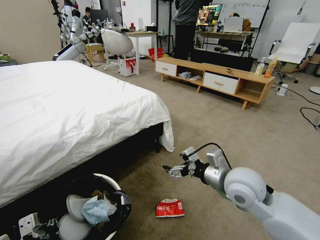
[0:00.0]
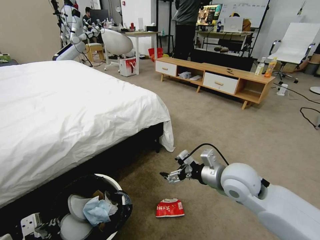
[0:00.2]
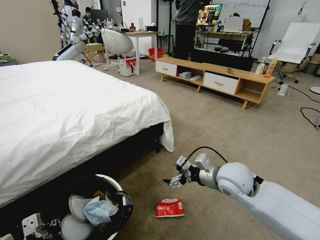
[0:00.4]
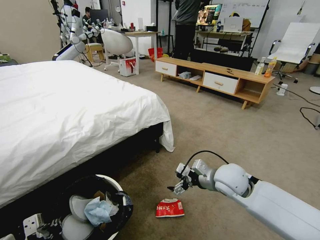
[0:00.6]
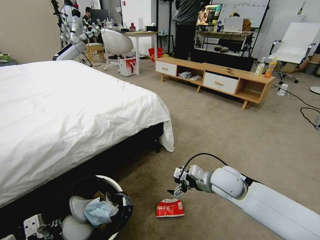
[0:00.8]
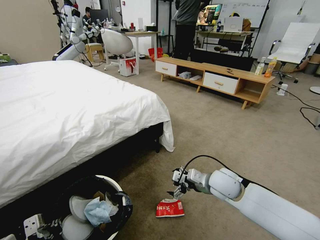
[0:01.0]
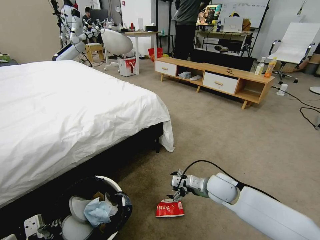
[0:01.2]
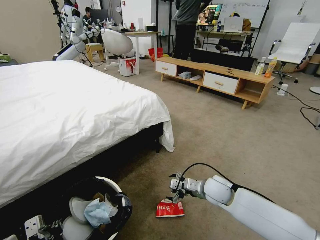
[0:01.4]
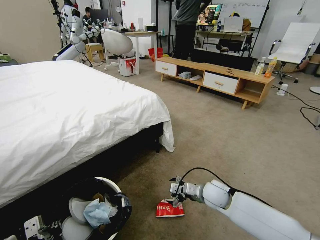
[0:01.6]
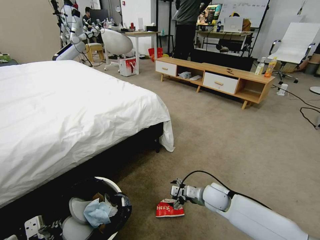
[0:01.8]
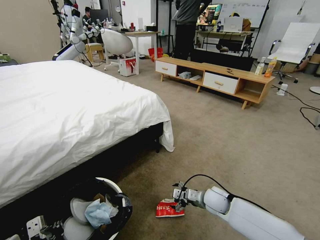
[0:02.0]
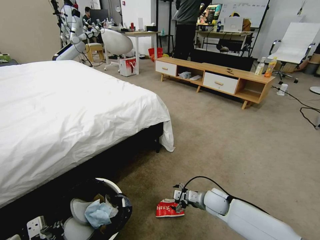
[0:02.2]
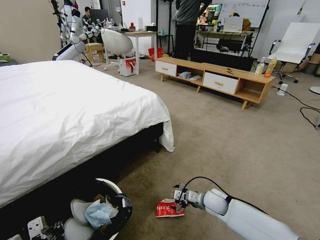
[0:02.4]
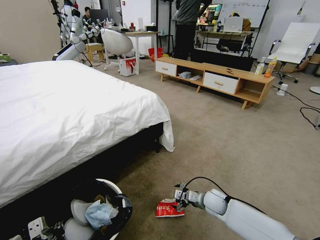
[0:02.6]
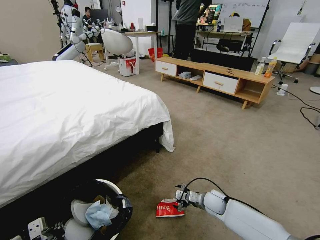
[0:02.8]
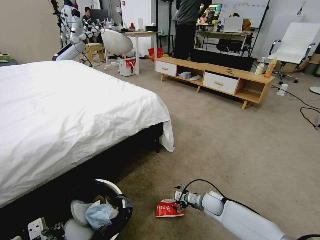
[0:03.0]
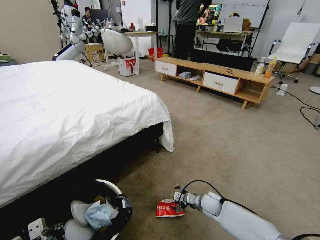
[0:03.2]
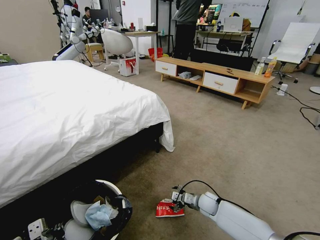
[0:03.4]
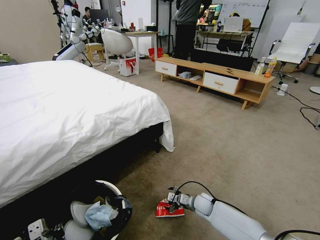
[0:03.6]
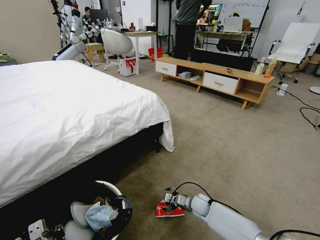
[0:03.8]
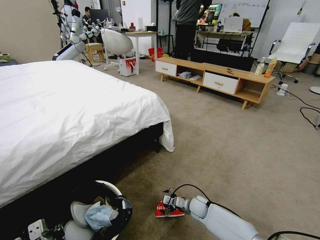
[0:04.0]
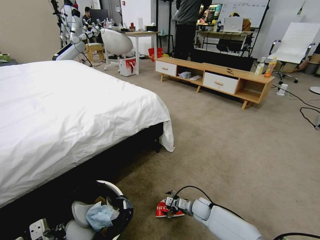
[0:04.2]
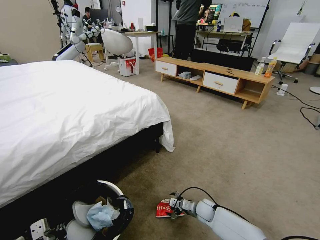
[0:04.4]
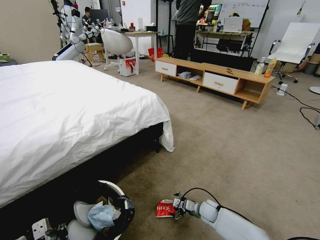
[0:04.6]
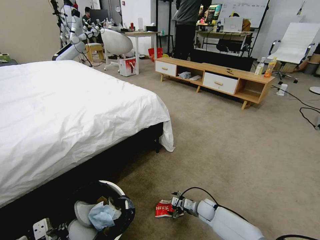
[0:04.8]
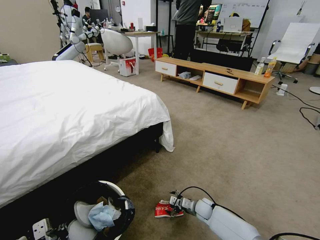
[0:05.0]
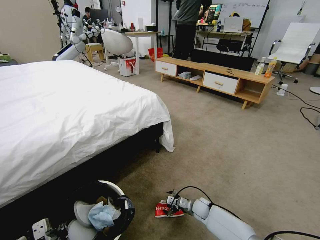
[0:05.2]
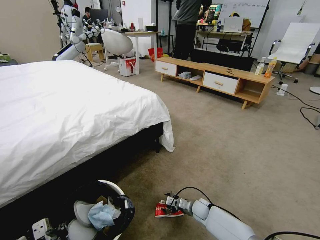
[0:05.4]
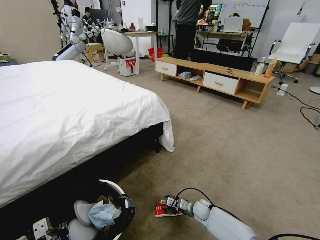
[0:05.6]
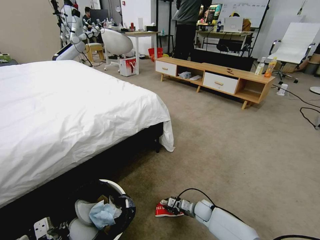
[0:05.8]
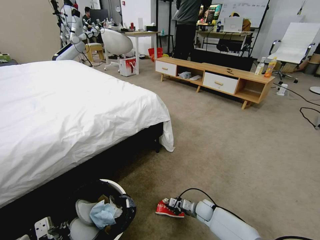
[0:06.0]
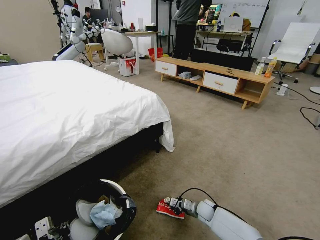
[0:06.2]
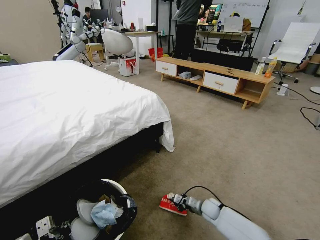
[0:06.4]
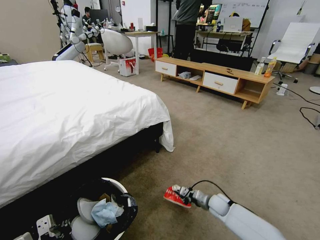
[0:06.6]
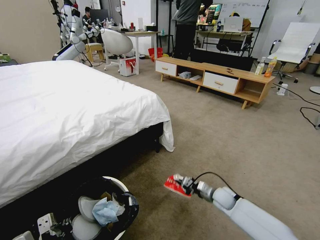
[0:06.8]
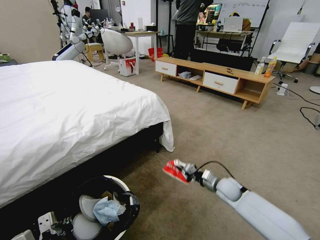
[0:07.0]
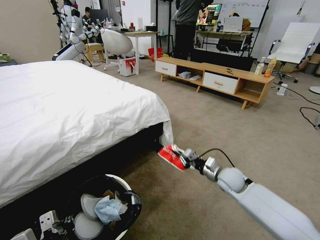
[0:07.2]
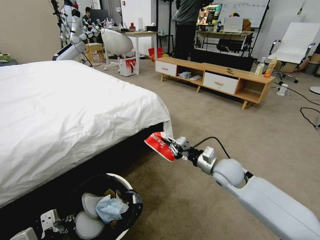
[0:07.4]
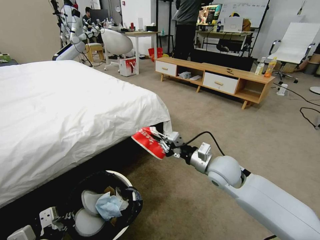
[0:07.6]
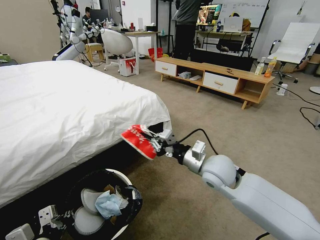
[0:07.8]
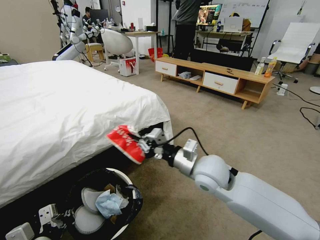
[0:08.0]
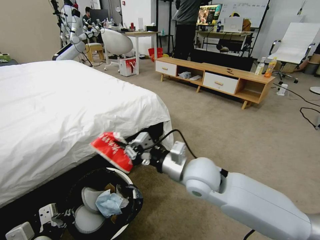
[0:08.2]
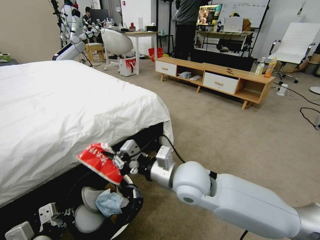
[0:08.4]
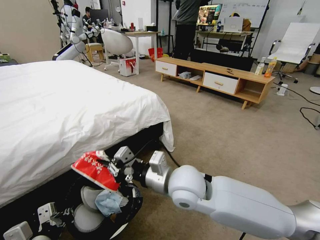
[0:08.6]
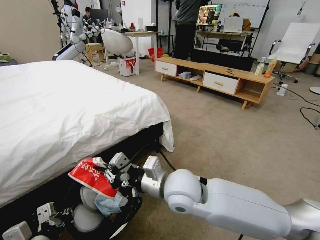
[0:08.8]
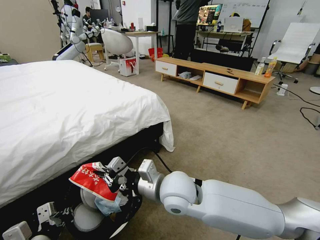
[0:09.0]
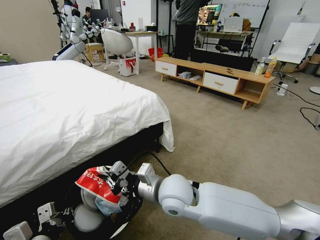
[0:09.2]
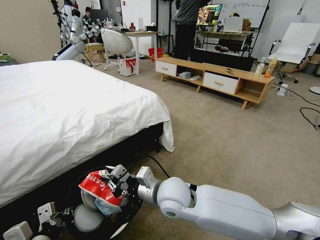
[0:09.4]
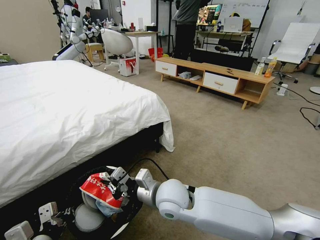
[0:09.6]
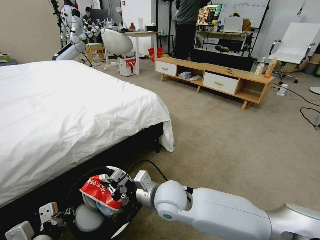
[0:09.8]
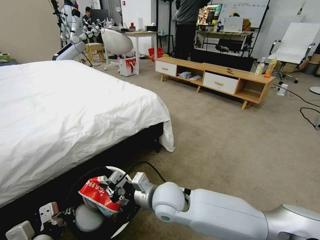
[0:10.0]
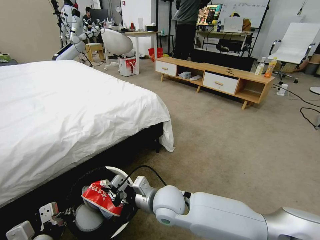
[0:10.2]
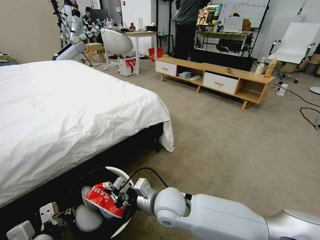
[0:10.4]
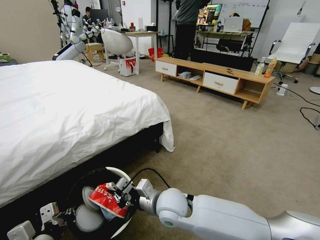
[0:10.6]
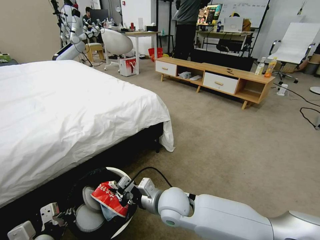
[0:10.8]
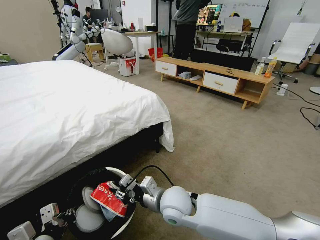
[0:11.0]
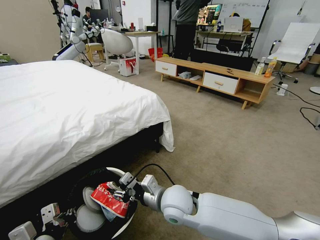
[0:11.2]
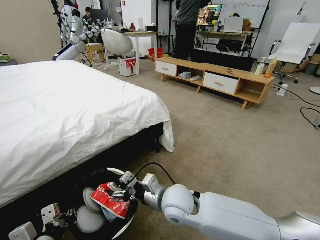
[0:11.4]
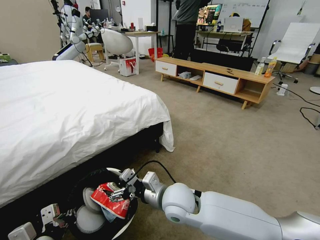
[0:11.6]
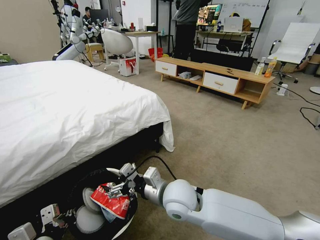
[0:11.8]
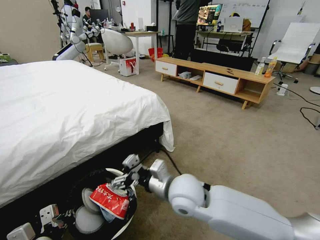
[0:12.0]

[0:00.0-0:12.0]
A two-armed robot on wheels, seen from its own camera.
Task of the whole recording: Pick up the trash bin and place the garbage on the floor into it.
0:00.0 to 0:01.6: The right gripper travels downward and forward by about 20 cm.
0:01.6 to 0:03.0: The right gripper moves downward, approximately 10 cm.
0:03.0 to 0:04.4: The right gripper moves downward, some 5 cm.
0:04.4 to 0:06.0: The right gripper closes up.
0:06.0 to 0:07.6: The right gripper moves upward, some 35 cm.
0:07.6 to 0:09.0: The right gripper moves to the left and backward, approximately 20 cm.
0:09.0 to 0:10.4: The right gripper moves downward, approximately 10 cm.
0:10.4 to 0:12.0: The right gripper moves upward, some 5 cm, and opens its fingers.

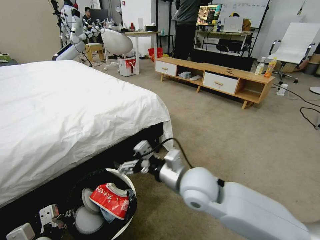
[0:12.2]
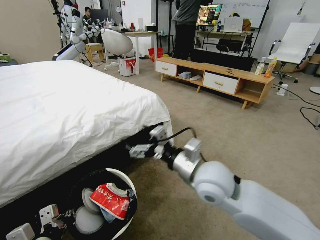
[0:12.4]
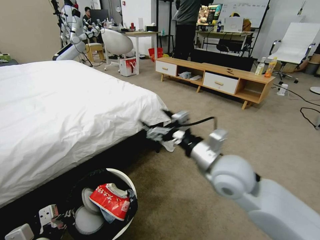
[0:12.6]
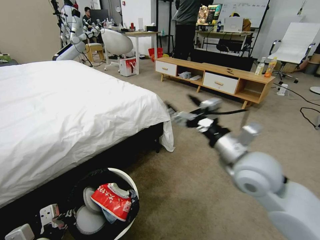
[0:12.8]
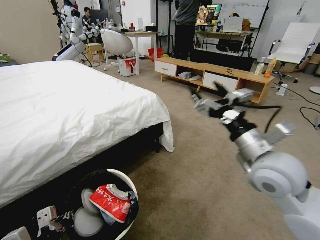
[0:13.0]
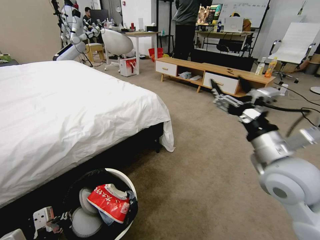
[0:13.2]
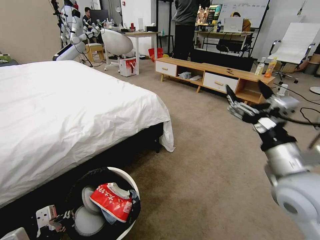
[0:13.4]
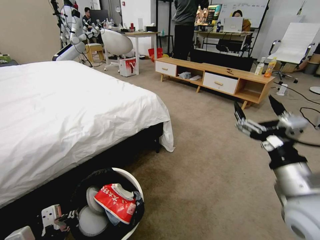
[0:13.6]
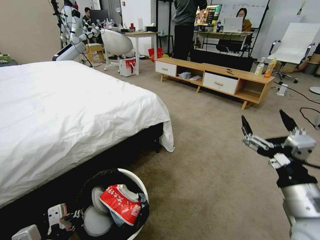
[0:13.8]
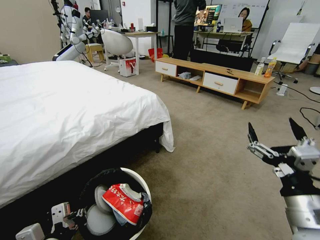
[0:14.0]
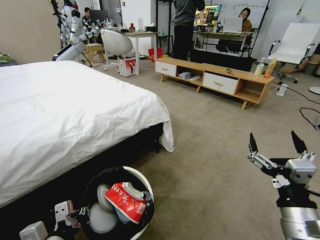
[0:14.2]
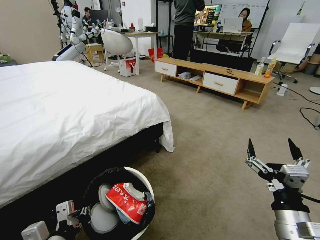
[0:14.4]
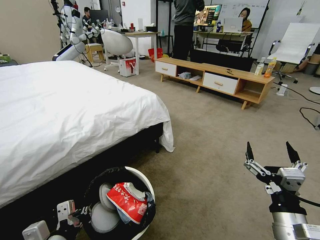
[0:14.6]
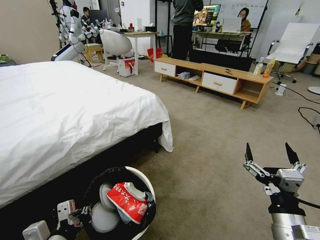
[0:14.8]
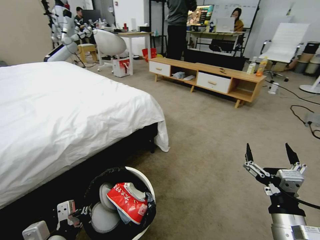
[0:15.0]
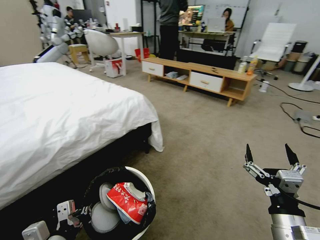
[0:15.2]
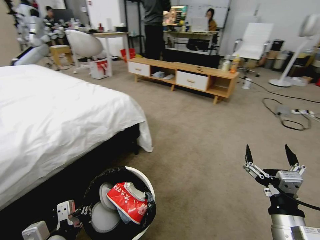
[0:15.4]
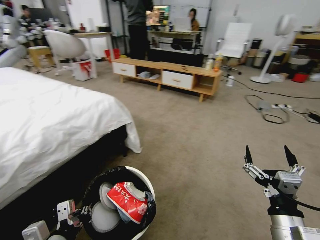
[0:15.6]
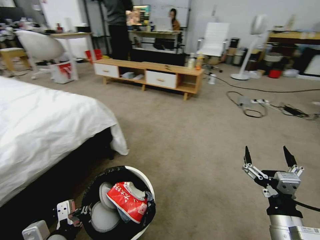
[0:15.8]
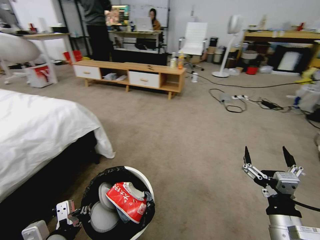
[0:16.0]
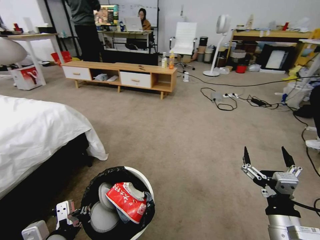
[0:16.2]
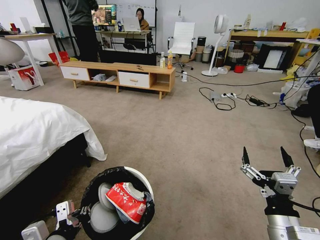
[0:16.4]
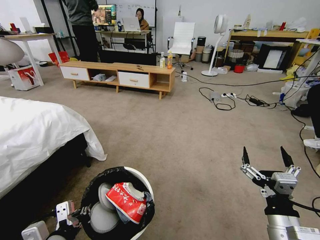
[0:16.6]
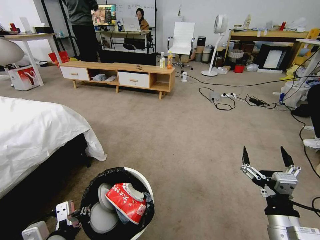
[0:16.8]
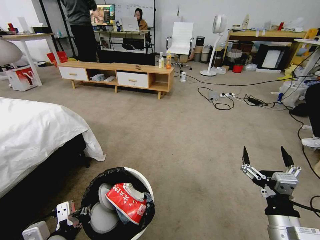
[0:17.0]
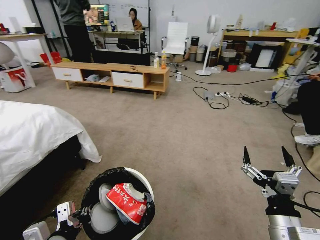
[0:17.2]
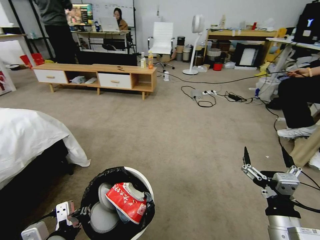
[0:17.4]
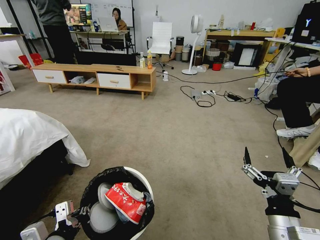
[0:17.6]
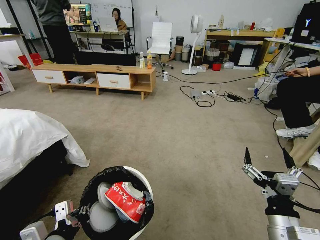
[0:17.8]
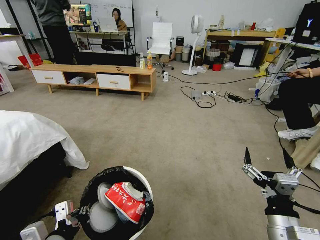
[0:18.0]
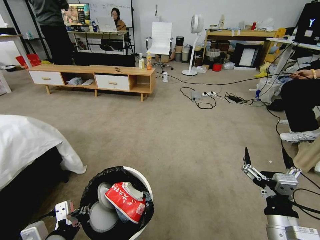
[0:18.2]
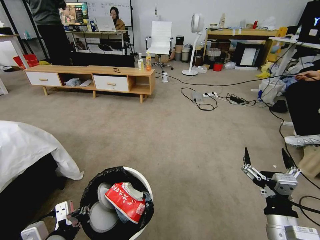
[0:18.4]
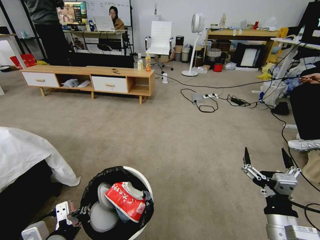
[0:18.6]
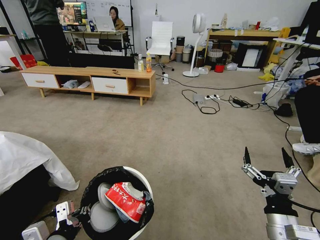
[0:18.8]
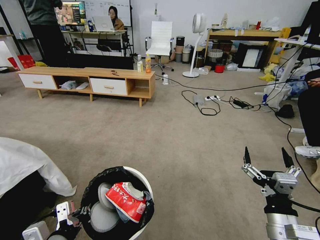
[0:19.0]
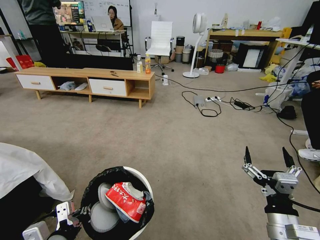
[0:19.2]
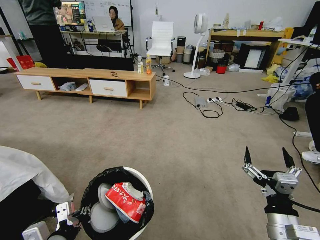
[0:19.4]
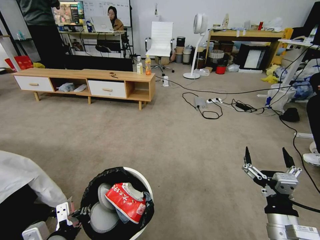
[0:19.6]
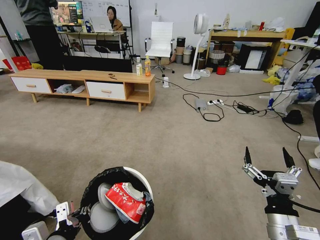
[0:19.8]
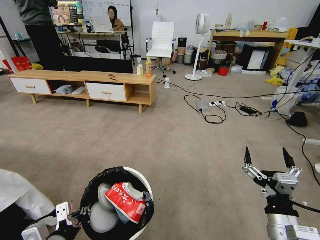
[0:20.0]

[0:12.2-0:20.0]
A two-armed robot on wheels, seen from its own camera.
Task of the whole recording: Pick up the trash bin and place the garbage on the floor into it.
0:12.2 to 0:13.8: The right gripper is displaced to the right and backward by about 25 cm.
0:13.8 to 0:15.4: The right gripper heads downward, covering approximately 10 cm.
